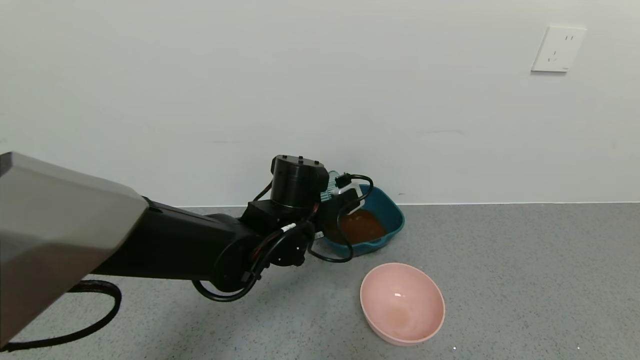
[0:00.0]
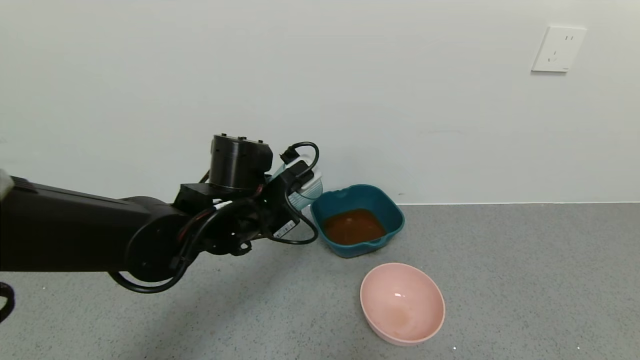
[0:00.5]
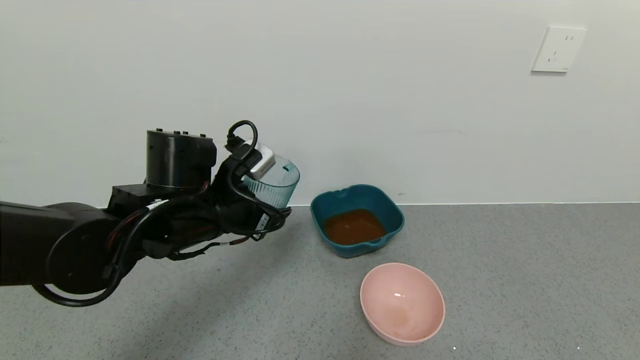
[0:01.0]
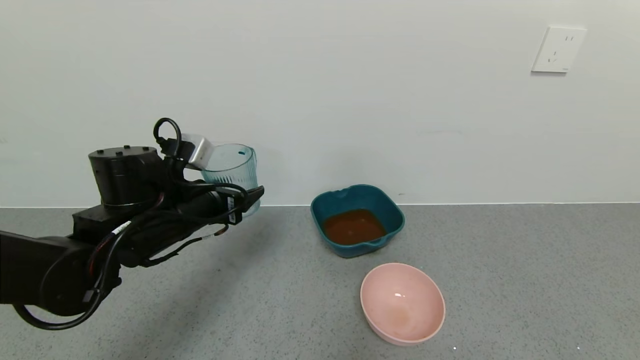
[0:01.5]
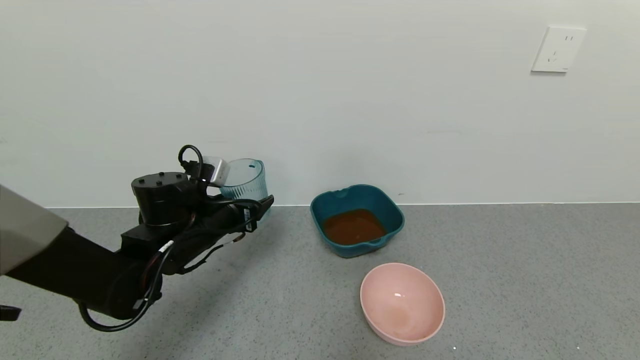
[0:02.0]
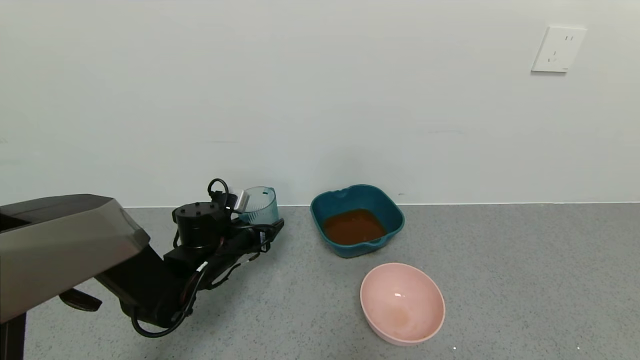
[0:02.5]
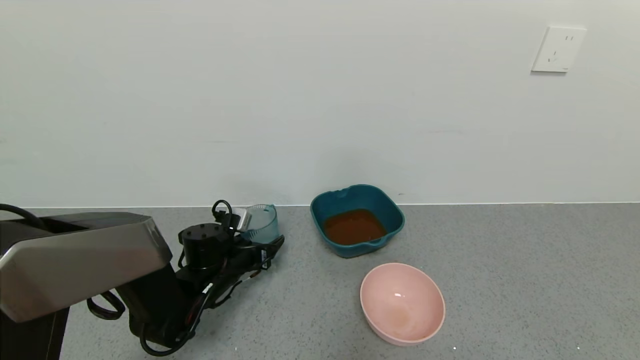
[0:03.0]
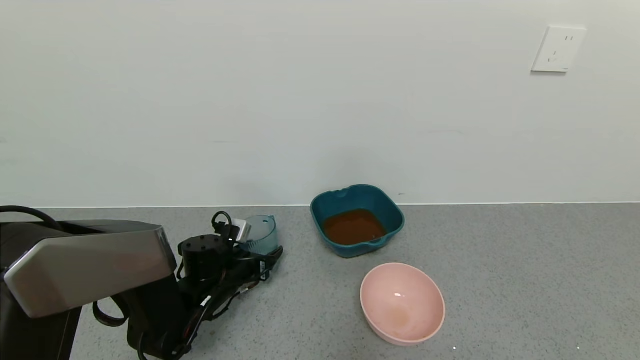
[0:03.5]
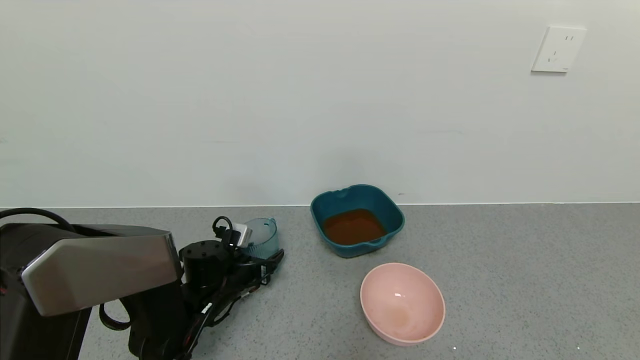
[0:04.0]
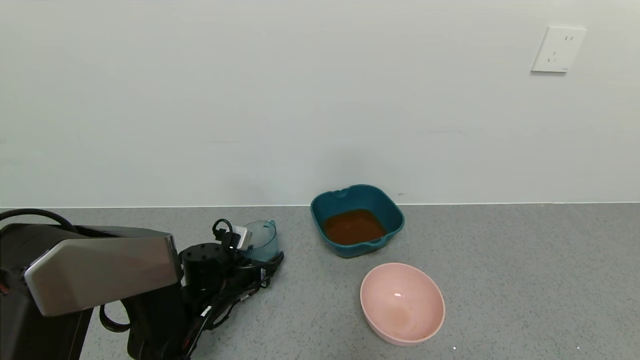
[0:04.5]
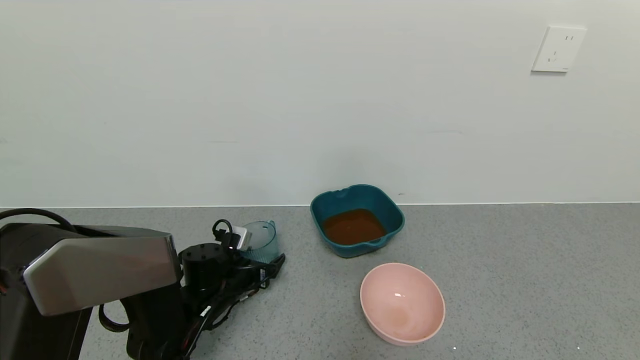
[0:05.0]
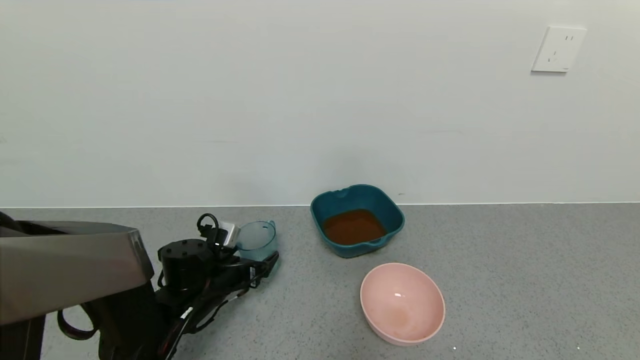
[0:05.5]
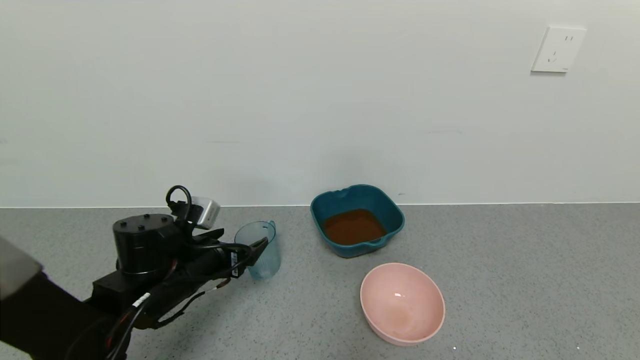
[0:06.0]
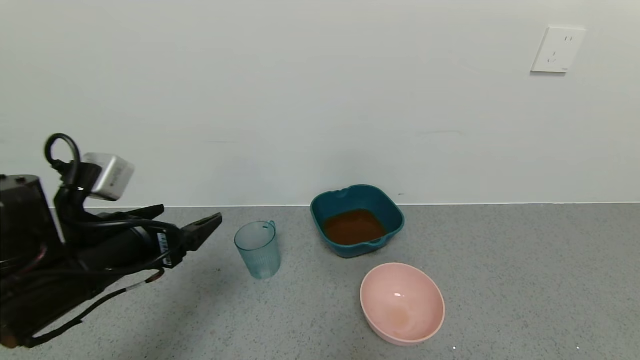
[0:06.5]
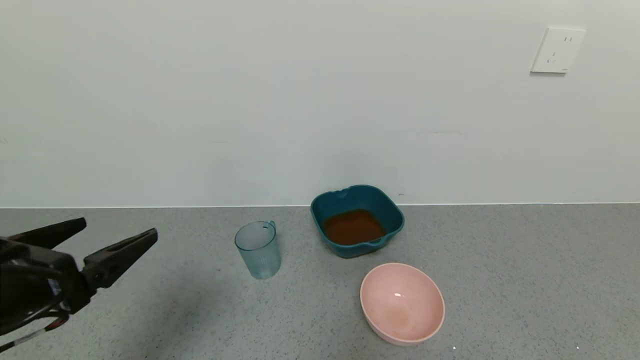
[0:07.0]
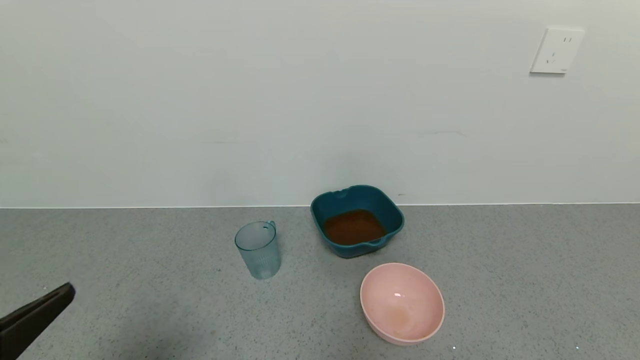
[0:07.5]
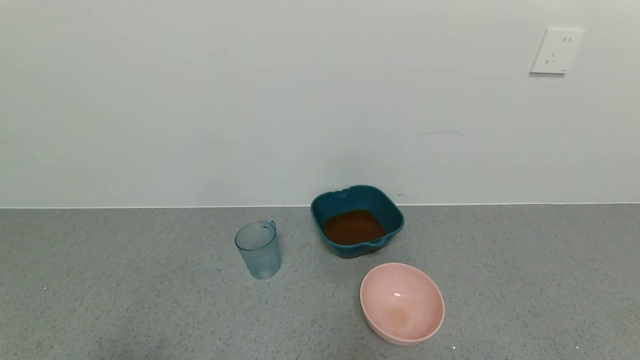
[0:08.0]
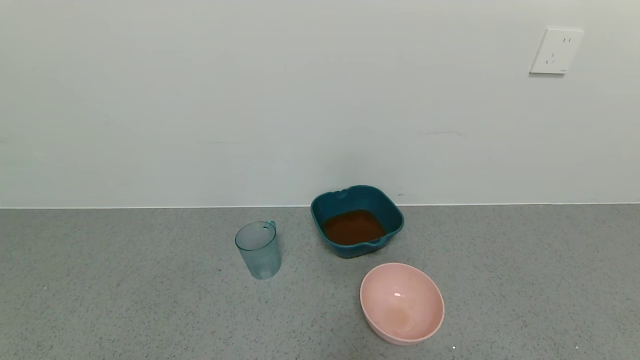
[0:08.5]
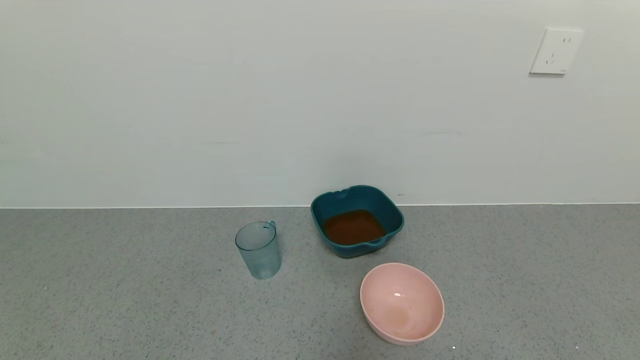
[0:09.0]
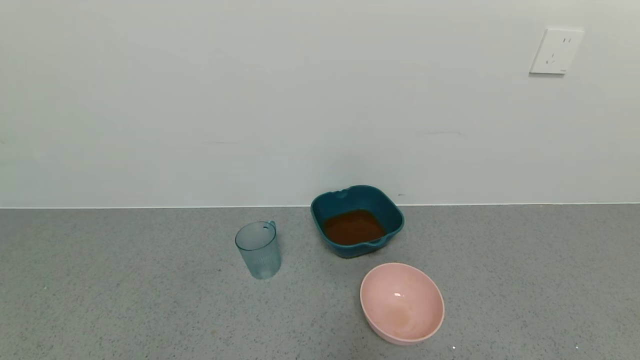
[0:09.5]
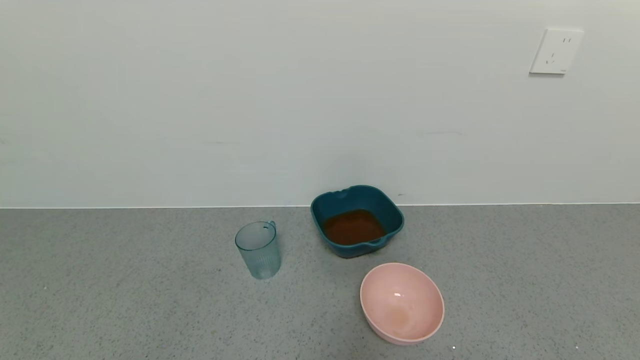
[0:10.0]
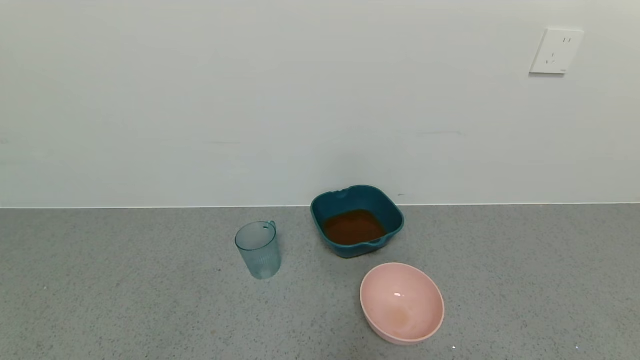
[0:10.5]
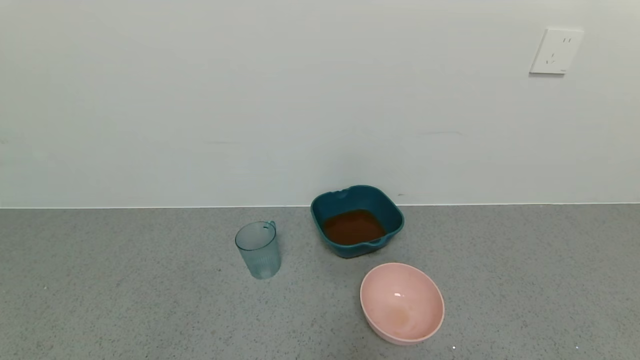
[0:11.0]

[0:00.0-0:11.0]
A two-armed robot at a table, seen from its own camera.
Task of the whole recording: use a gripper to pick up the cup and pour the liquid into a bowl or tray.
Step, 0:00.5 to 0:06.0: Place the glass cup with the left gripper.
0:00.0 to 0:02.0: The left gripper is displaced to the left by some 15 cm.
0:02.0 to 0:03.5: The left gripper heads downward, covering about 10 cm.
0:03.5 to 0:05.5: The left gripper opens up.
0:05.5 to 0:07.5: The left gripper is displaced backward and upward by roughly 35 cm.
0:07.5 to 0:09.0: The left gripper heads backward and downward, covering approximately 10 cm.
